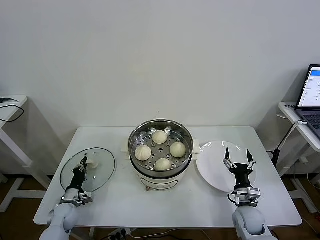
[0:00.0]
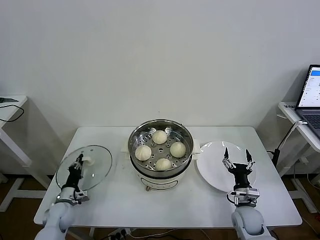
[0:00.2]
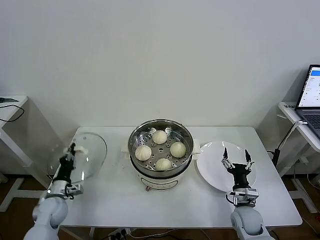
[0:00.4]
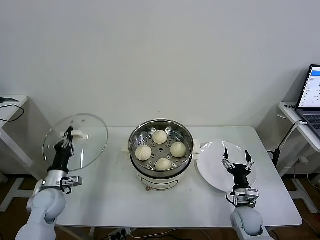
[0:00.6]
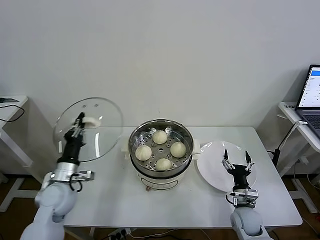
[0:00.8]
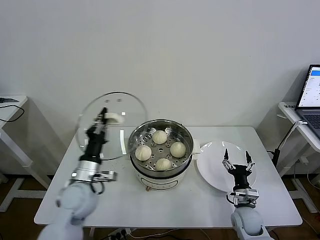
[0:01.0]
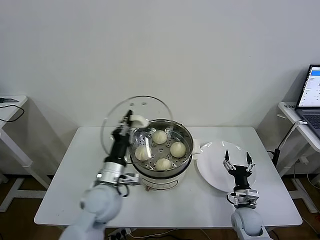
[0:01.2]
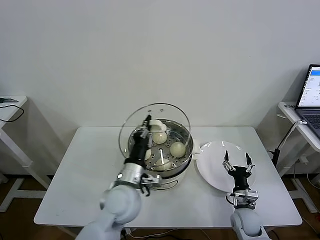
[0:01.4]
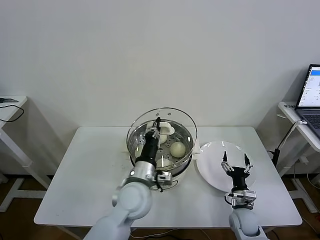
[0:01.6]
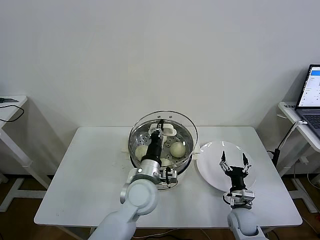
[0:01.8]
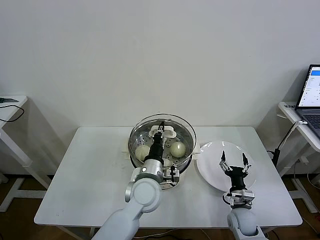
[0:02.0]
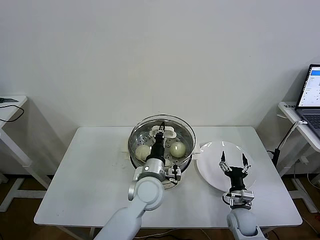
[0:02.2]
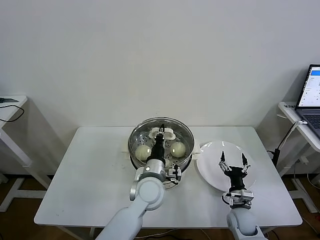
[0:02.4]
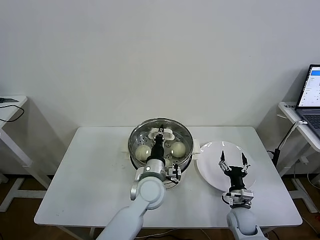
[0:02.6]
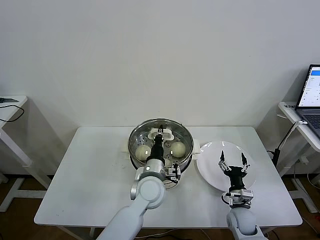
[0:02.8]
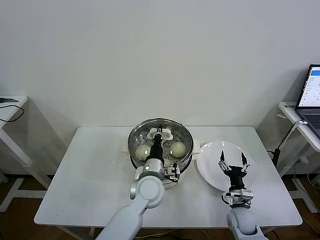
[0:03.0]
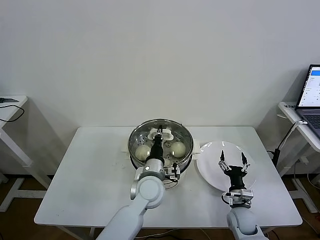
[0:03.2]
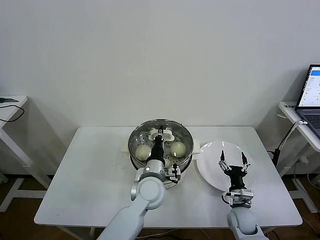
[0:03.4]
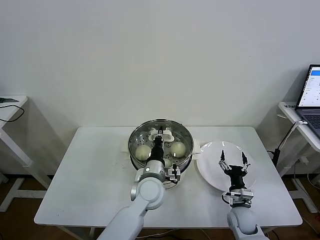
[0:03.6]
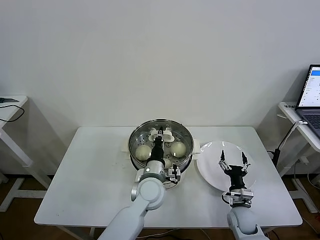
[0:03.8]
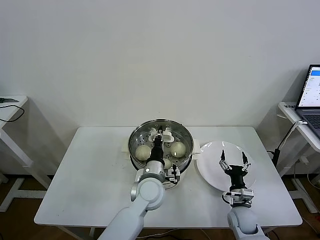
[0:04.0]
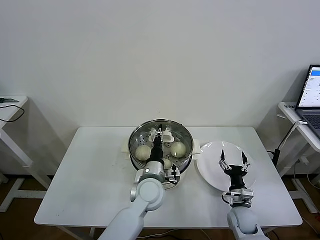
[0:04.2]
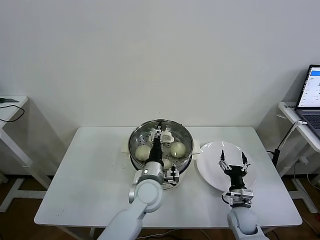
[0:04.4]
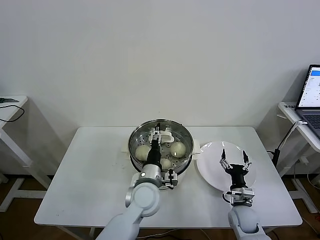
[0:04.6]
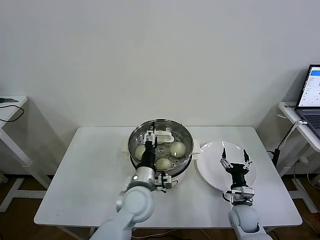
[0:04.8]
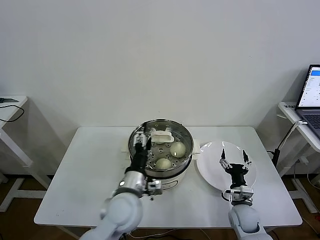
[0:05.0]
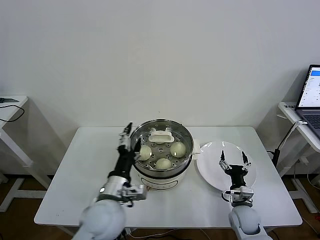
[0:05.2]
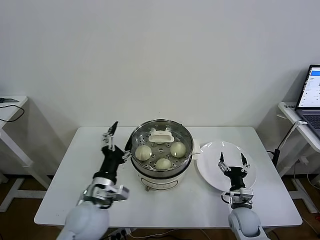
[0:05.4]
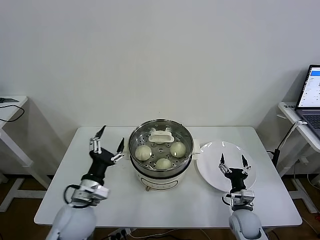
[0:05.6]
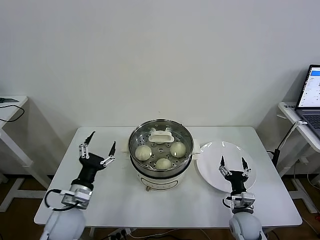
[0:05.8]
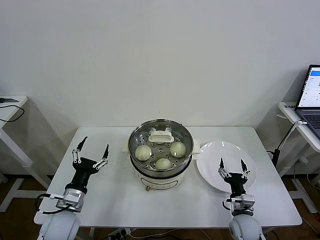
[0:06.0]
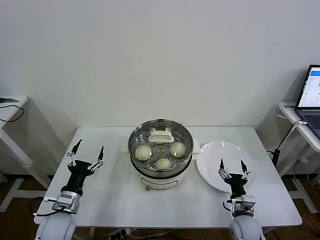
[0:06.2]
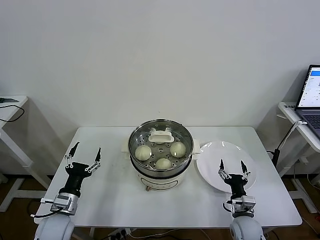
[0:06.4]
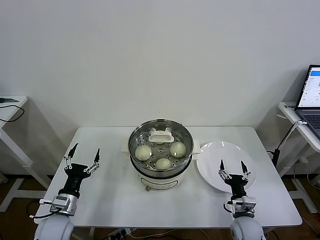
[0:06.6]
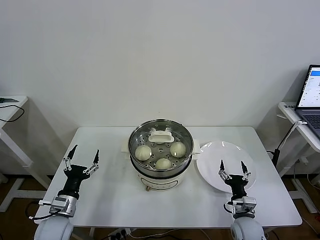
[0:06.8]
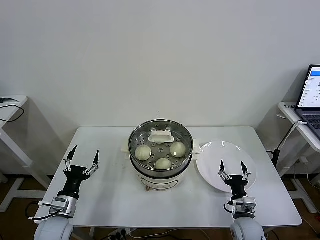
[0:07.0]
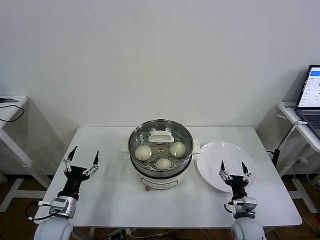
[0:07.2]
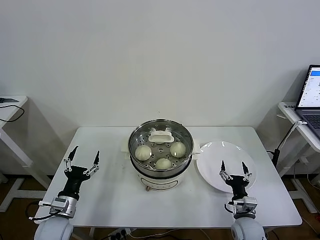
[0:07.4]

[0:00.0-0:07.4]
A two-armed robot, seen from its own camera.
Task of the whole recording: take steamed baozi put them in steamer then cover it.
Step, 0:00.2 to 0:04.6: Place the pot lid on the steamer with left gripper.
0:00.0 to 0:01.4: The left gripper moves to the right and upward, approximately 35 cm.
0:01.4 to 0:03.0: The left gripper travels to the right and forward by roughly 10 cm.
0:03.0 to 0:04.4: The left gripper opens its fingers.
0:04.4 to 0:06.0: The left gripper is displaced to the left by roughly 25 cm, and opens up.
0:06.0 to 0:07.4: The left gripper shifts by approximately 5 cm.

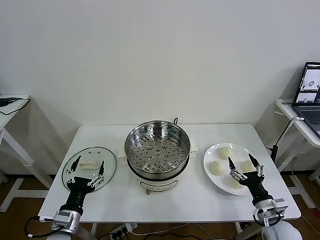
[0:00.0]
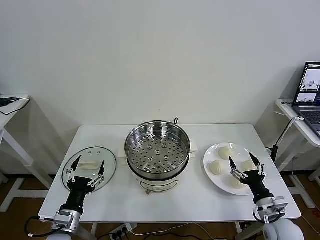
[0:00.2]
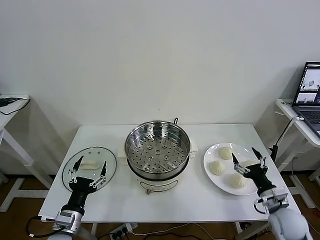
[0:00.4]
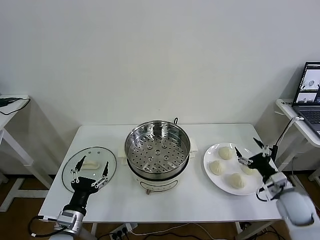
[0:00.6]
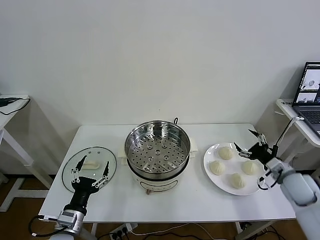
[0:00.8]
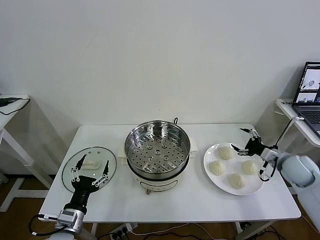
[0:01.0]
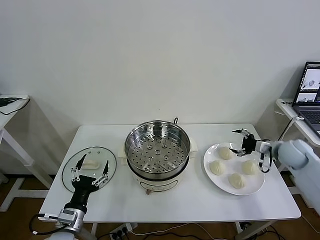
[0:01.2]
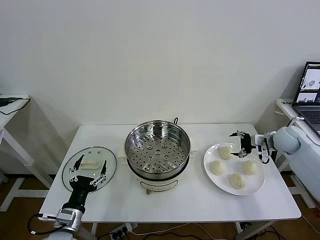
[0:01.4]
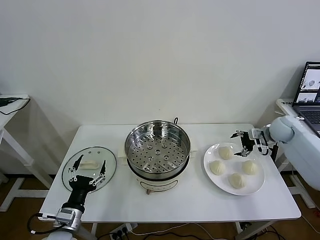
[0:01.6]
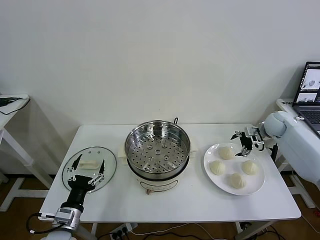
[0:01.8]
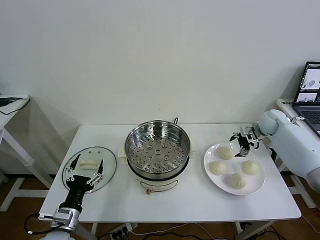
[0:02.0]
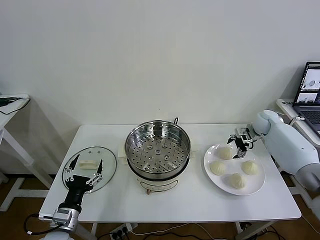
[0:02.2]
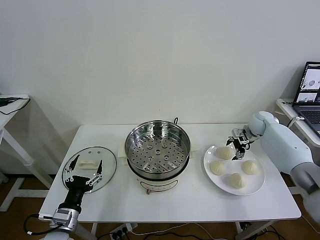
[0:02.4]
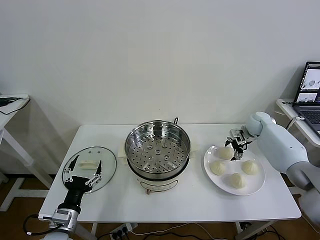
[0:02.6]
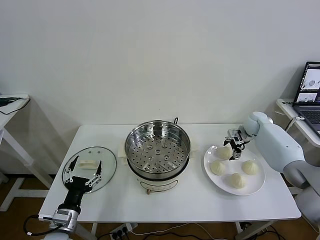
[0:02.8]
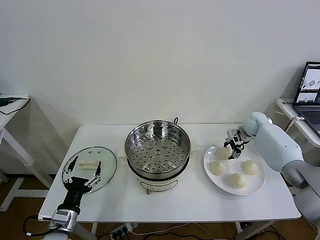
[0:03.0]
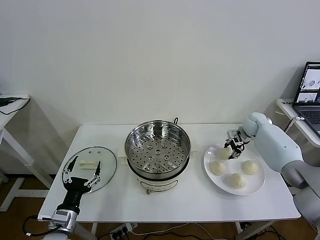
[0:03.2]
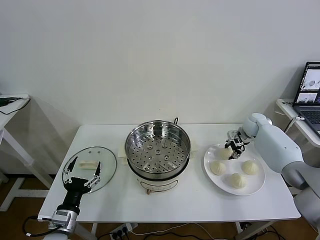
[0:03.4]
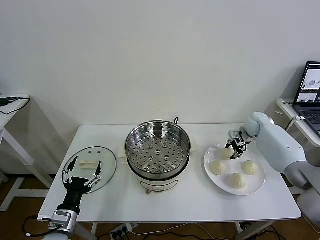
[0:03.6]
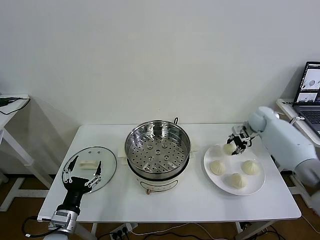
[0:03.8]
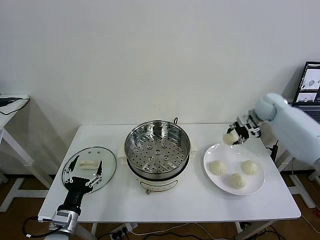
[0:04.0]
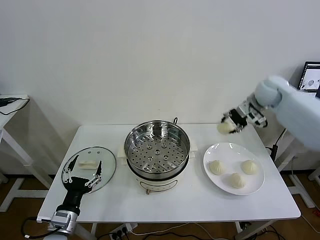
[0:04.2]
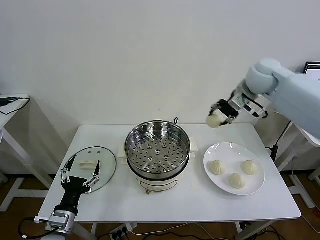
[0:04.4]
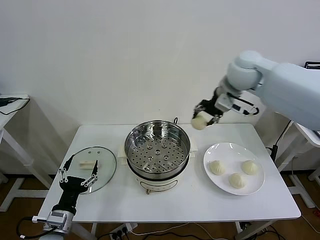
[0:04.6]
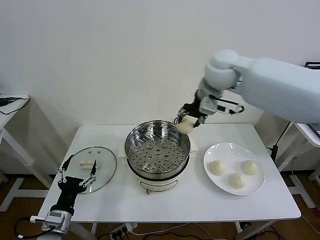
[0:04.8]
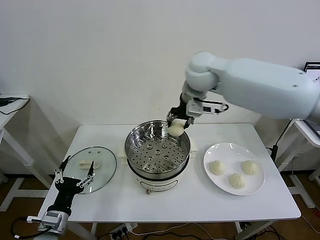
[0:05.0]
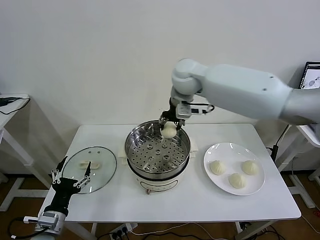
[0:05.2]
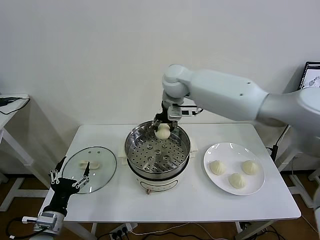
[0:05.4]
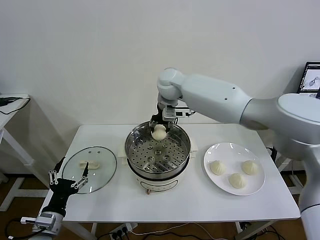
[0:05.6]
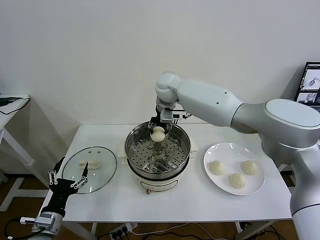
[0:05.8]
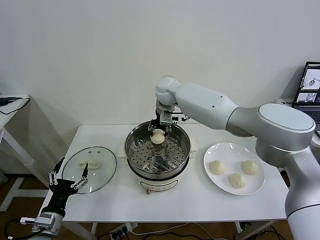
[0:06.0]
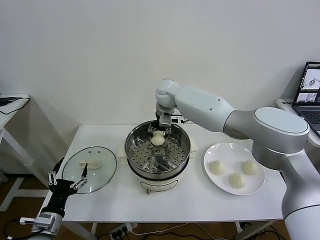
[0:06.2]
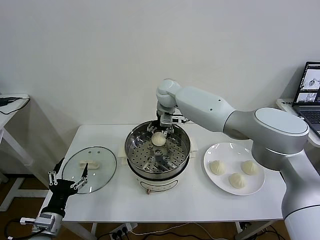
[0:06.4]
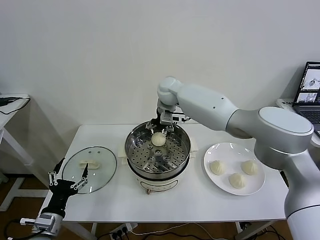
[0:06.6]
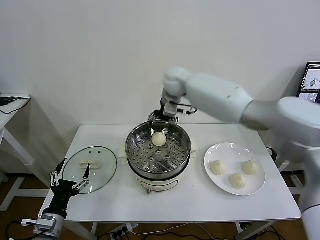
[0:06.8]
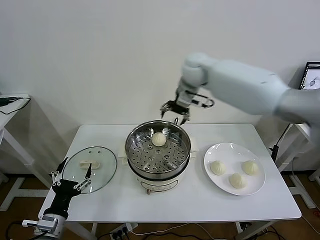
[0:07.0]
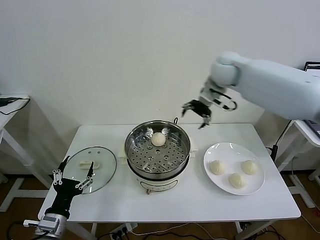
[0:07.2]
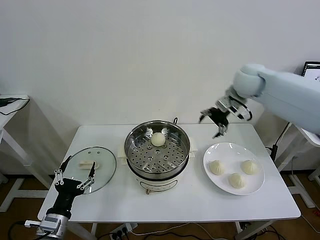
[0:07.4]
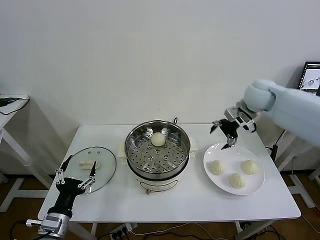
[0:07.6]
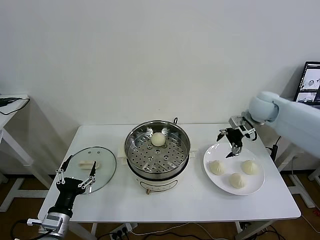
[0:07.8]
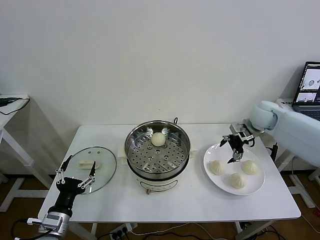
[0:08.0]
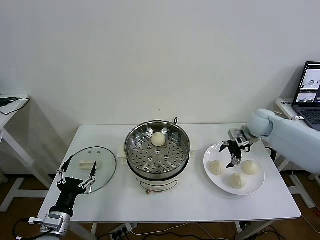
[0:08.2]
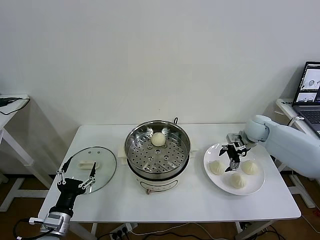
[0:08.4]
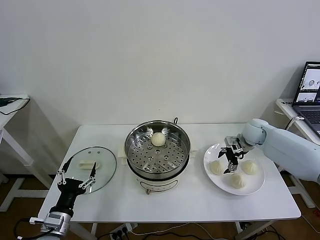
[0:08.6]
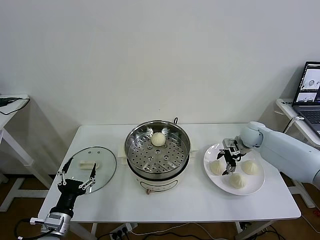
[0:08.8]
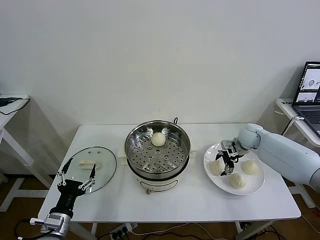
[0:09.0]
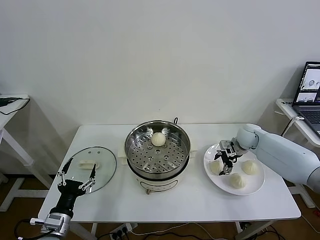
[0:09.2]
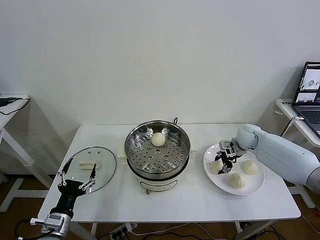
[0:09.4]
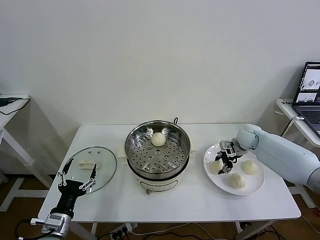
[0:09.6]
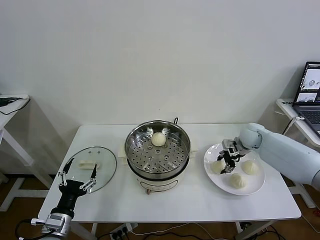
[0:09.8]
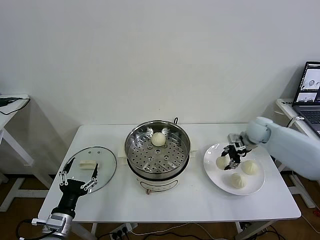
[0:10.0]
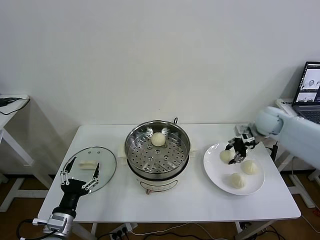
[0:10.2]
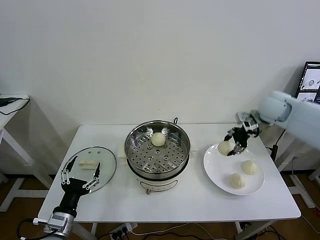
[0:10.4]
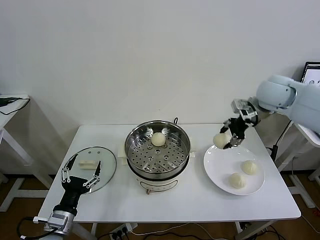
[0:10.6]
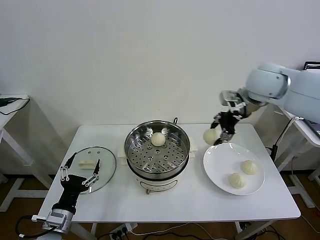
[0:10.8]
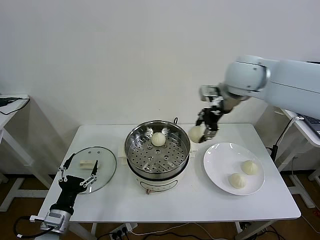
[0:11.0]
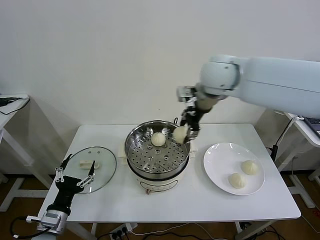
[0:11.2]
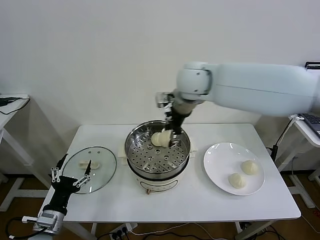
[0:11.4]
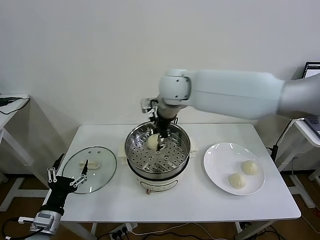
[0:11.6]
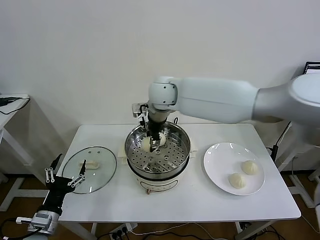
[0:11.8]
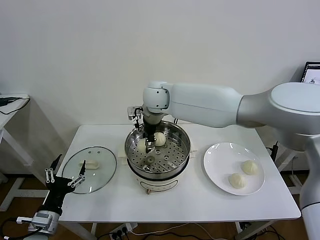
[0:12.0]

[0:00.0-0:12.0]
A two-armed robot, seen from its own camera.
Task of the whole recording: take steamed baozi put them in steamer then cover it.
Step, 0:00.0 to 0:03.2: Grasp the baozi in the plate with right gripper.
Step, 0:03.4 to 0:06.4: Place the baozi on the steamer with right gripper.
Step, 0:06.6 to 0:09.4: Grasp the baozi in the plate with right gripper.
0:01.6 to 0:03.0: The right gripper heads forward, to the left and downward, covering some 10 cm, and closes.
0:03.0 to 0:04.4: The right gripper is displaced upward and to the left by roughly 30 cm.
0:04.4 to 0:06.0: The right gripper heads to the left and downward, covering roughly 25 cm.
0:06.0 to 0:07.6: The right gripper shifts approximately 30 cm to the right, and opens up.
0:07.6 to 0:09.0: The right gripper shifts about 15 cm downward.
0:09.0 to 0:10.4: The right gripper goes roughly 20 cm upward, and closes.
0:10.4 to 0:12.0: The right gripper travels to the left by roughly 35 cm.

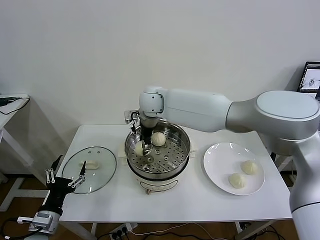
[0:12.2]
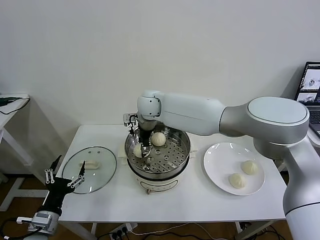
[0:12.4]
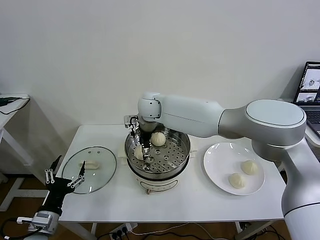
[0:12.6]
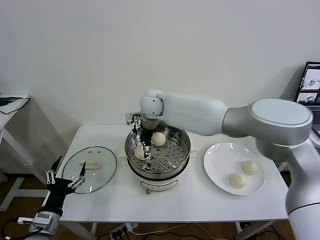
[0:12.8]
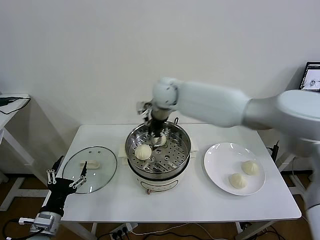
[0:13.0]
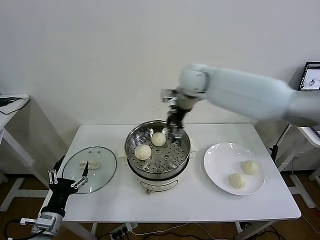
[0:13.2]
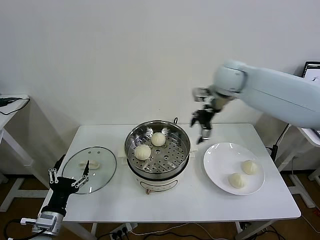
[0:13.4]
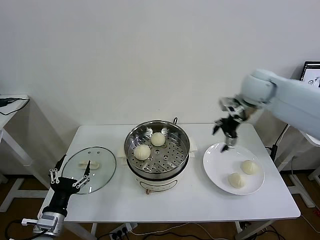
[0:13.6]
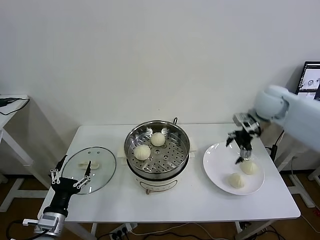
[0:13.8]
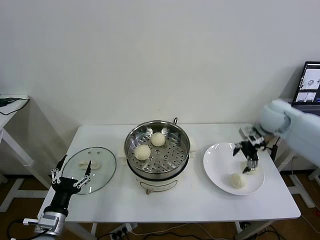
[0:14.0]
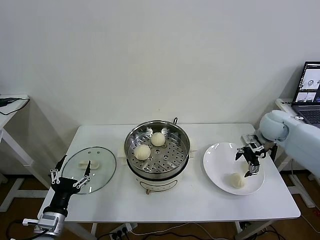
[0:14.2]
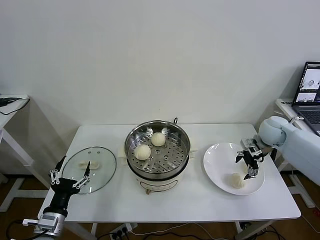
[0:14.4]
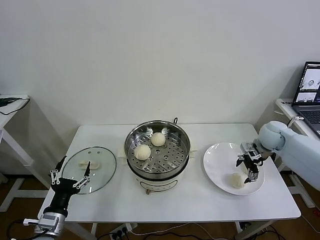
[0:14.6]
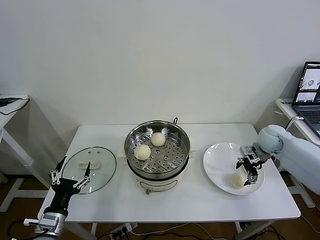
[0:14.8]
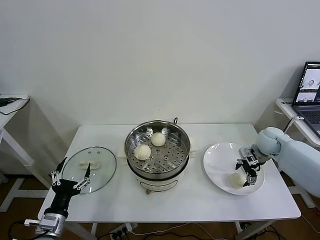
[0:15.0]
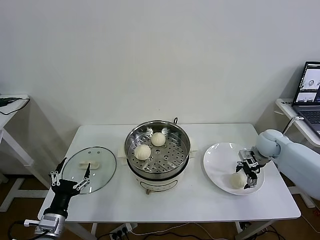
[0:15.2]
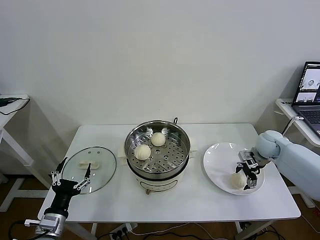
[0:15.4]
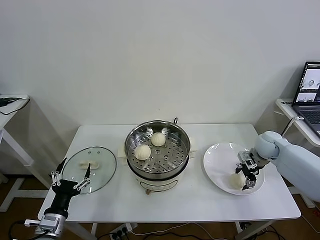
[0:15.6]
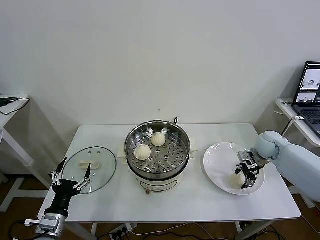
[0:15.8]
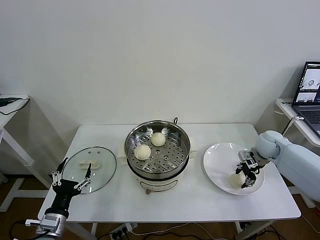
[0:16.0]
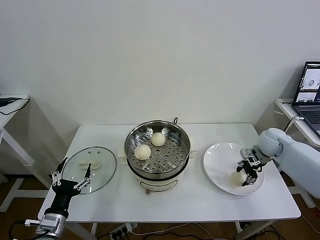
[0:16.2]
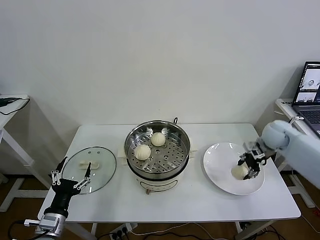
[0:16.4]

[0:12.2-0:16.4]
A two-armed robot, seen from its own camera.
Task of the whole recording: take steamed baozi put them in steamer then cover it.
Step, 0:12.8 to 0:15.8: Grasp the baozi in the plate with right gripper.
0:12.2 to 0:13.6: The right gripper heads to the right, covering roughly 35 cm, and opens its fingers.
0:13.6 to 0:15.0: The right gripper heads downward and to the right, covering some 20 cm.
0:15.0 to 0:16.4: The right gripper travels upward by roughly 5 cm, and closes up.
